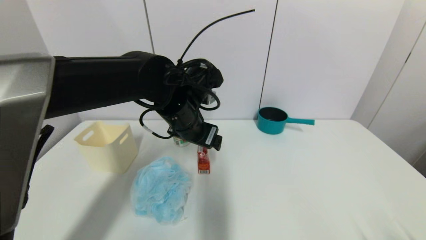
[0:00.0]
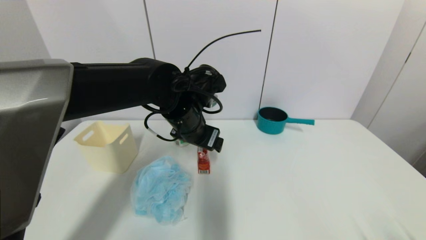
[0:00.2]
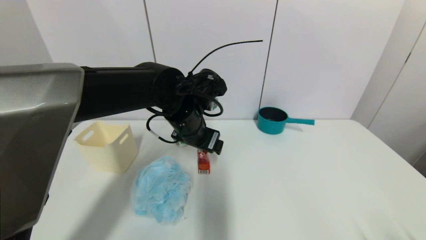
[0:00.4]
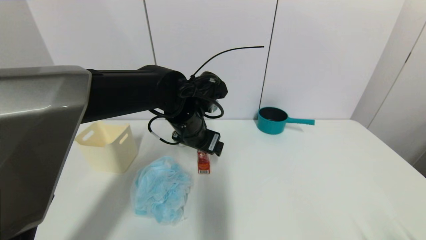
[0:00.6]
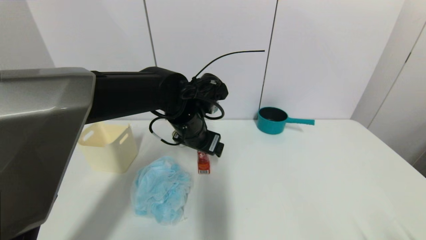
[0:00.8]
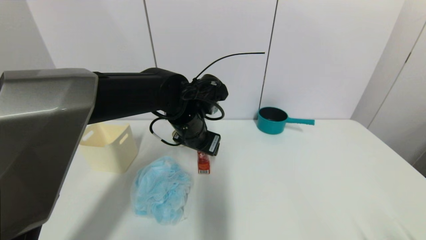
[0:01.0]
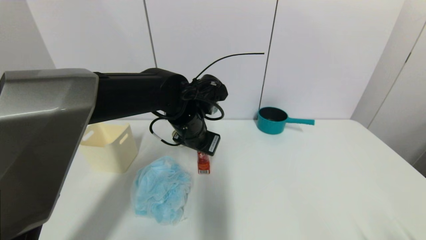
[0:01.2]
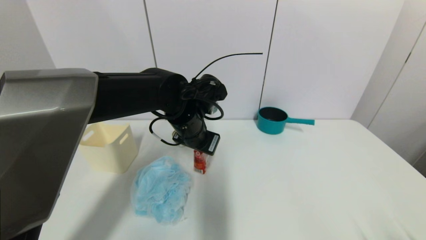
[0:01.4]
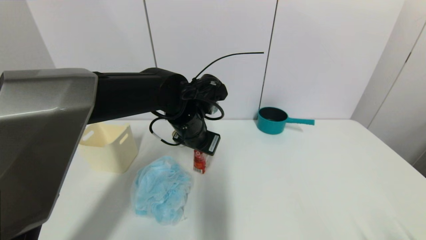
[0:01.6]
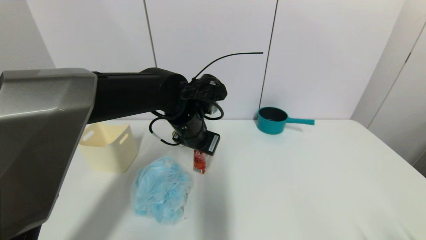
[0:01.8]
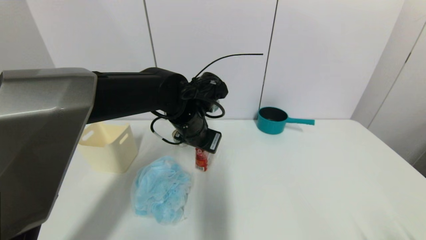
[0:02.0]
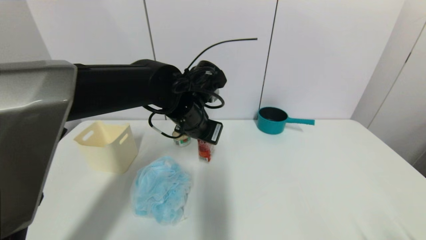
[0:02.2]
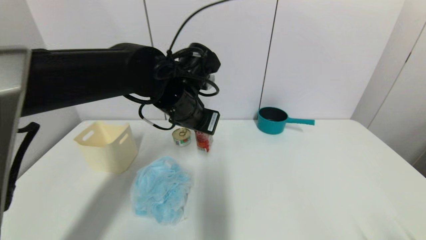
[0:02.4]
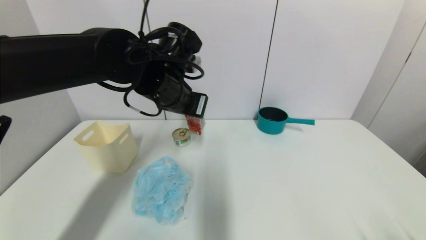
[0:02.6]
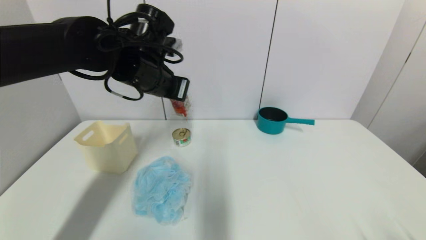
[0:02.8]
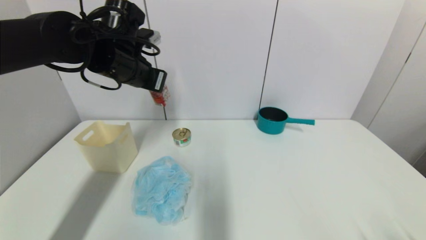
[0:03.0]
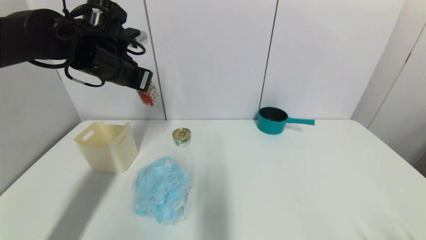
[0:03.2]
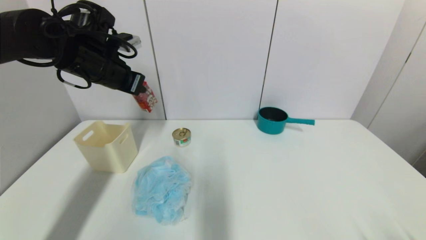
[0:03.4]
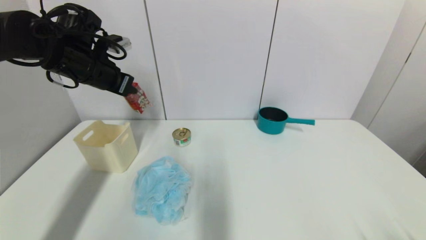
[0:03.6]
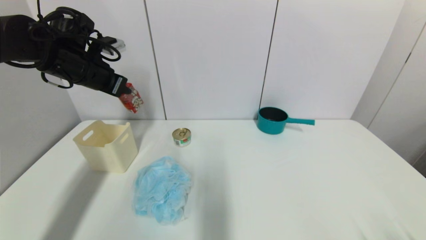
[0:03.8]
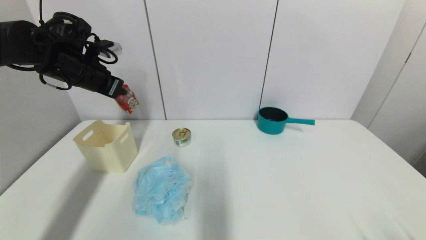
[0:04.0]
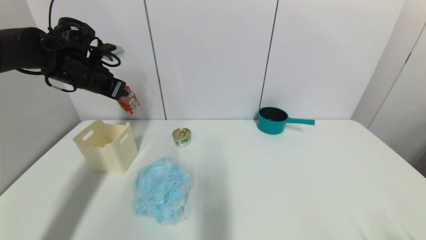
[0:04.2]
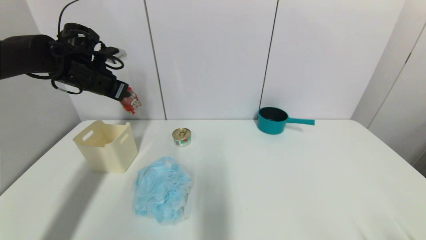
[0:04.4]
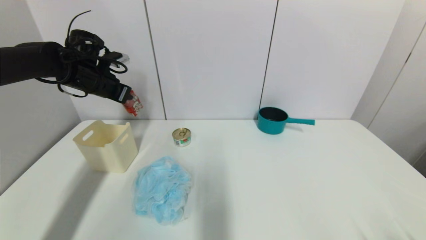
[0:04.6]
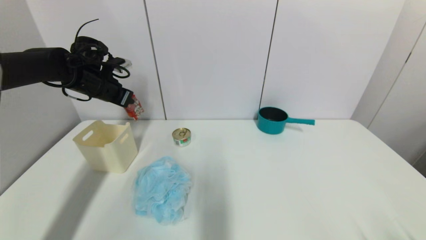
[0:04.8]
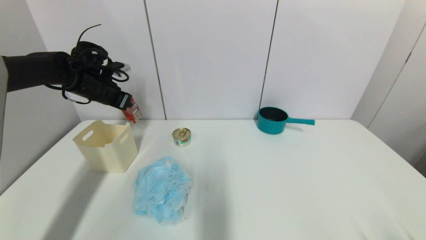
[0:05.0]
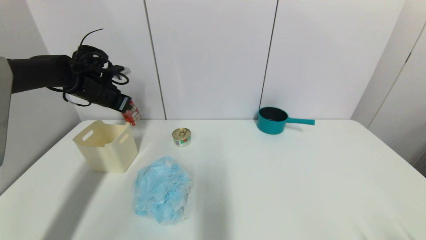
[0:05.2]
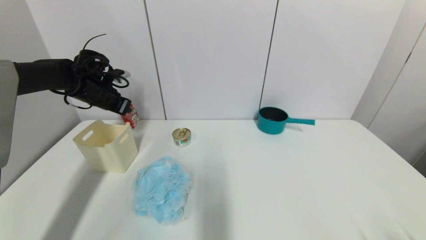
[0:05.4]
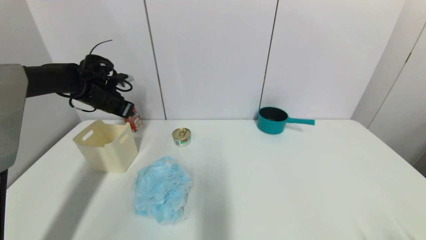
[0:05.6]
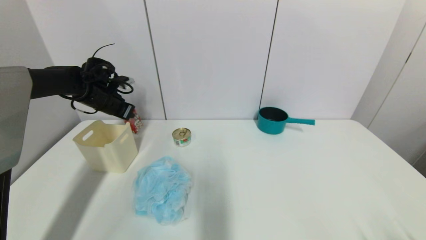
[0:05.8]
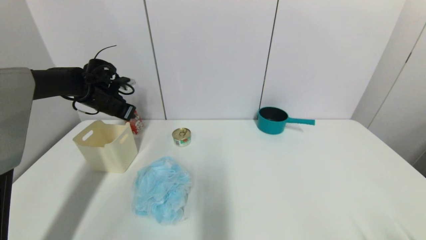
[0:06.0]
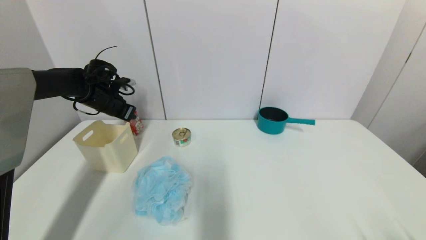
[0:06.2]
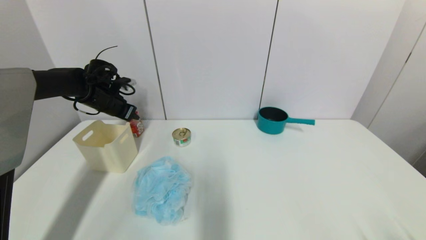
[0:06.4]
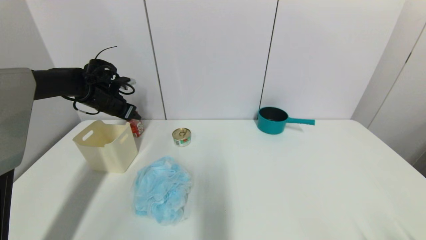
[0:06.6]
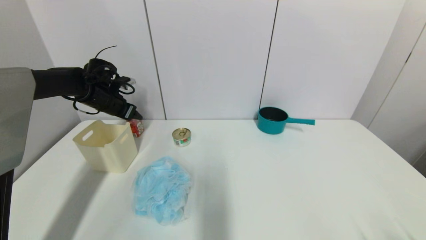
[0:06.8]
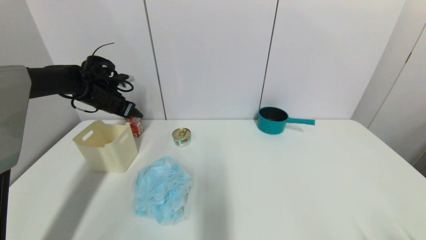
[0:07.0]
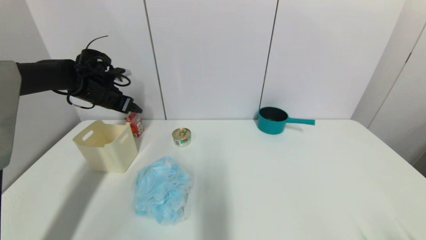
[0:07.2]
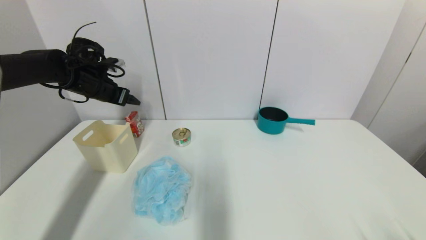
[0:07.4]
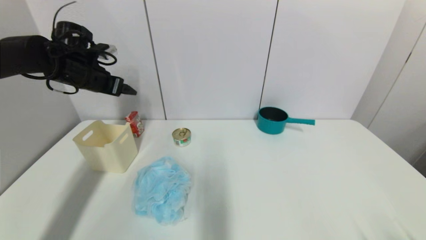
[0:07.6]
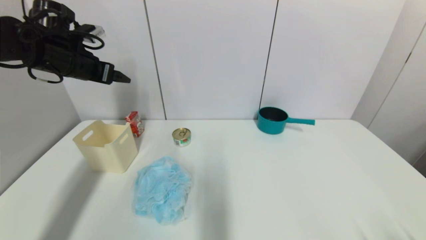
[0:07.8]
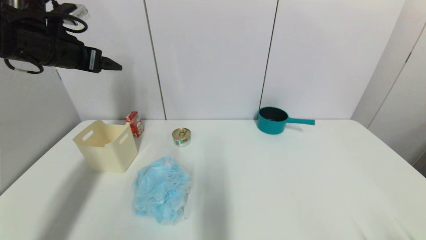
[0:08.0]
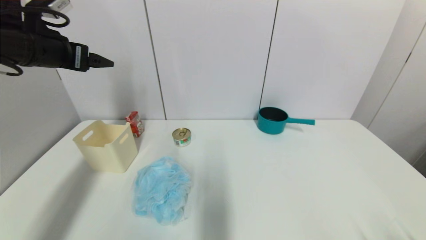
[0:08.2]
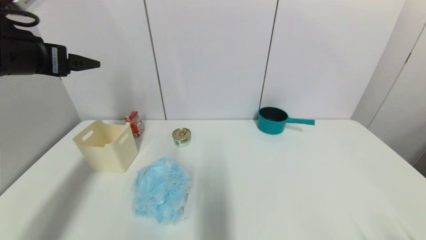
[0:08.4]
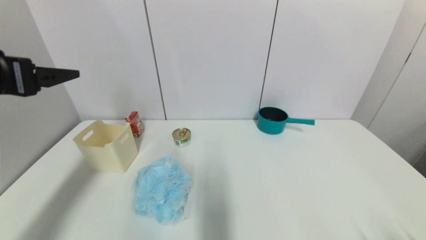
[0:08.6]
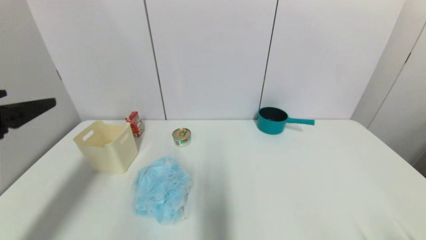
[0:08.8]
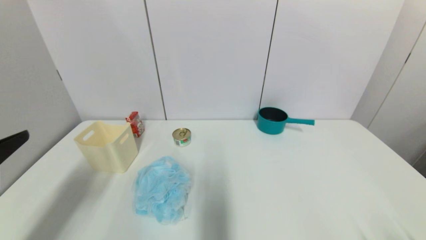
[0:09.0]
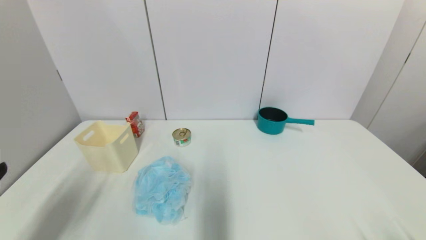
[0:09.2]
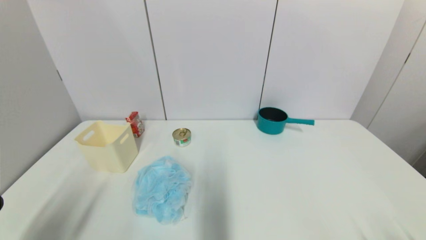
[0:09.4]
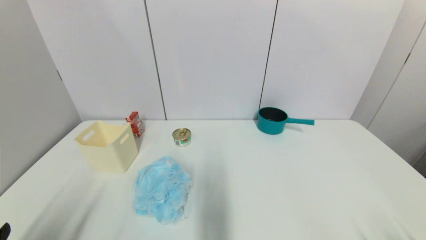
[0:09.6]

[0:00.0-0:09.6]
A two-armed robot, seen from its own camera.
Step, 0:02.0 to 0:06.4: Place the wangzai milk on the table with left gripper.
0:00.0 to 0:01.6: The left gripper closes.
0:01.6 to 0:03.2: The left gripper is displaced to the left and upward by approximately 20 cm.
0:03.2 to 0:04.8: The left gripper shifts about 15 cm to the left, forward and downward.
0:04.8 to 0:06.4: The left gripper is displaced downward by roughly 5 cm, and opens.
0:06.4 to 0:08.0: The left gripper moves upward and backward, approximately 20 cm, and opens.
0:08.0 to 0:09.6: The left gripper shifts some 40 cm backward and downward.

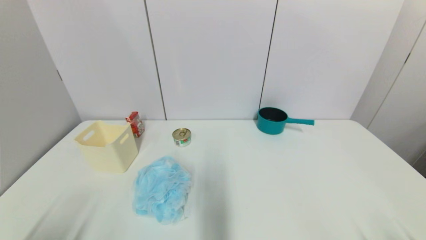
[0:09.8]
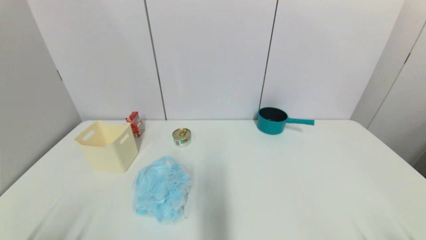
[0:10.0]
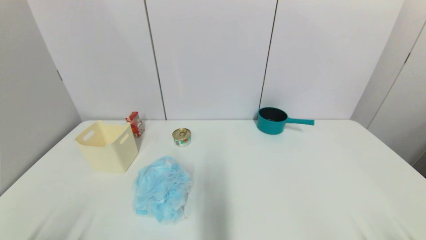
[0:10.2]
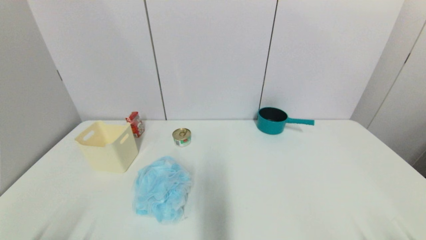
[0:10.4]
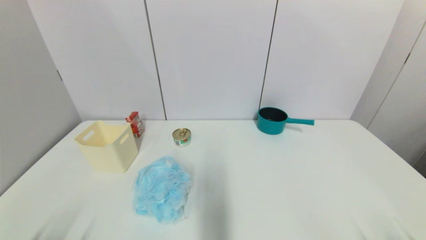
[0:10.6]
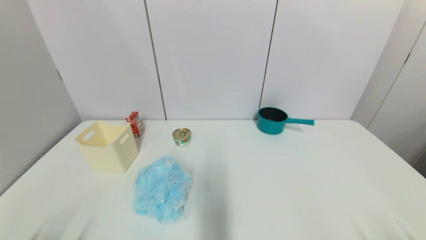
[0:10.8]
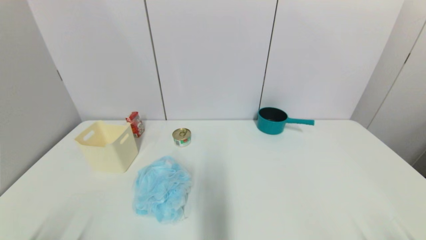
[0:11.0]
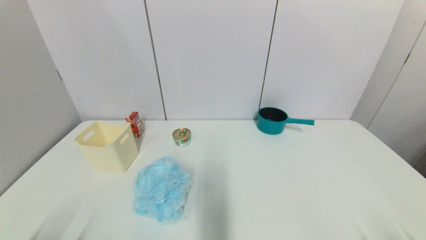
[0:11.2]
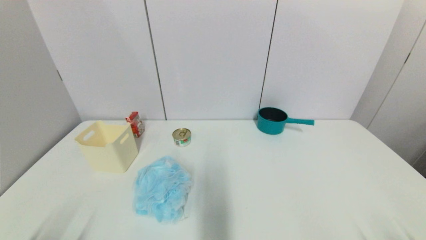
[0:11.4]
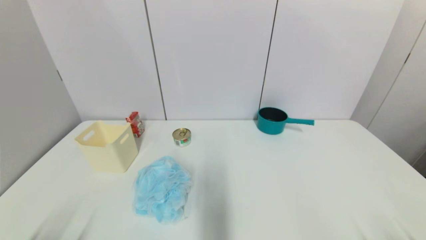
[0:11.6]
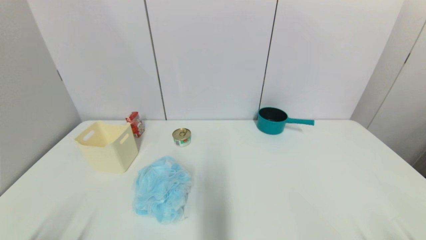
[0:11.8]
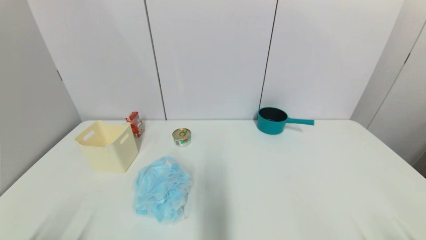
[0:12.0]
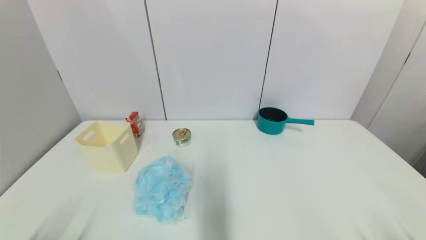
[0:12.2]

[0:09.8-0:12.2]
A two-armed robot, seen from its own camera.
0:11.0 to 0:12.2: Both grippers stay put.

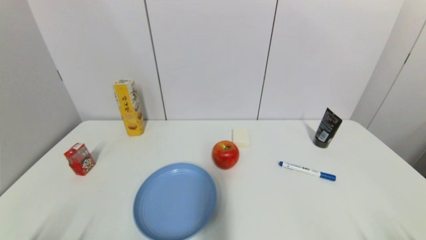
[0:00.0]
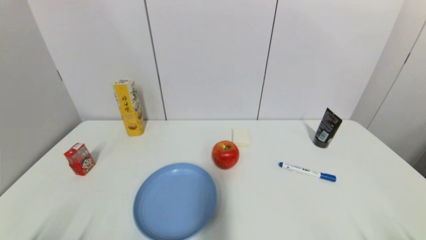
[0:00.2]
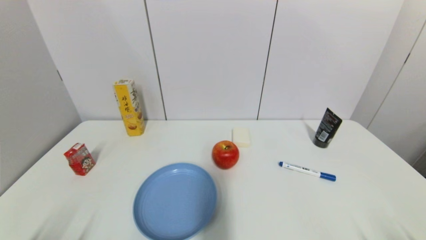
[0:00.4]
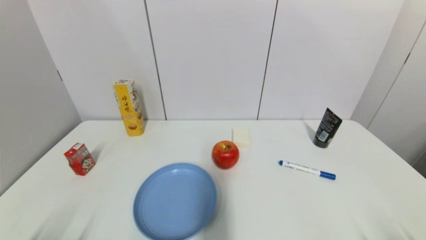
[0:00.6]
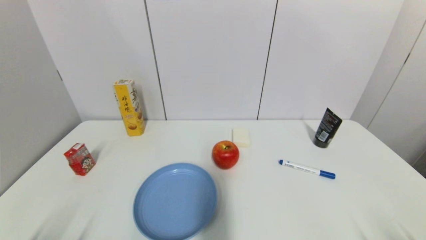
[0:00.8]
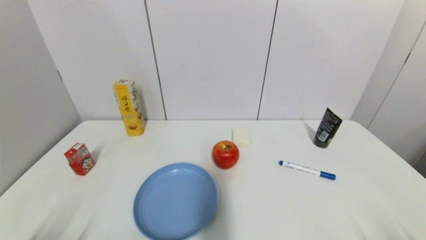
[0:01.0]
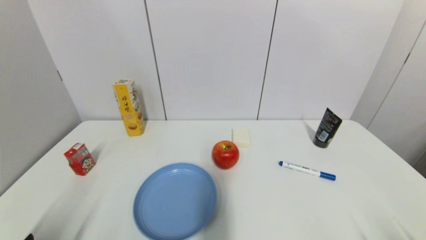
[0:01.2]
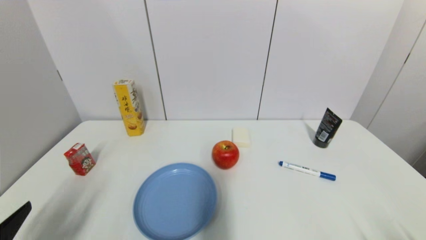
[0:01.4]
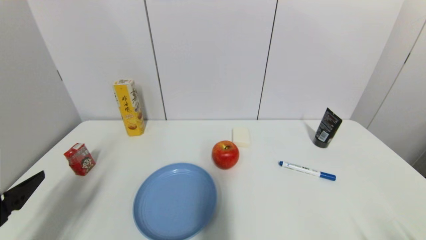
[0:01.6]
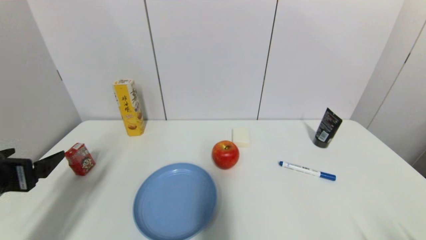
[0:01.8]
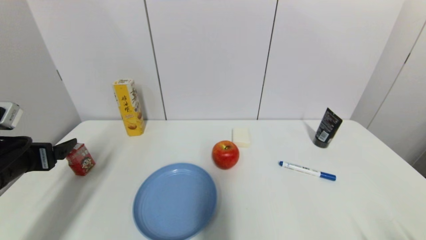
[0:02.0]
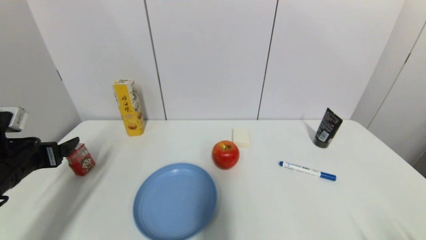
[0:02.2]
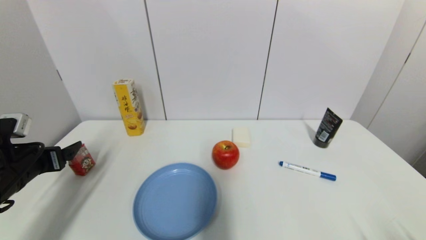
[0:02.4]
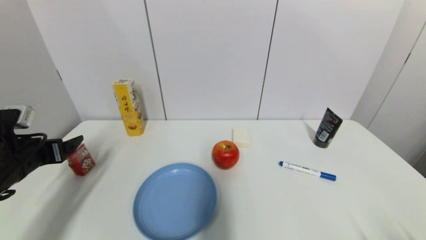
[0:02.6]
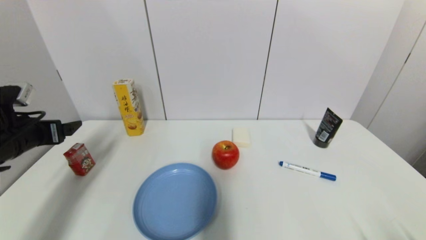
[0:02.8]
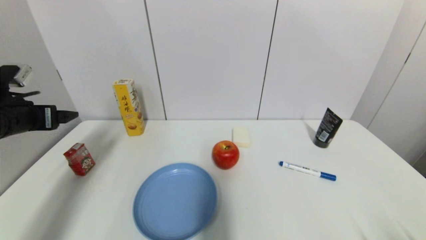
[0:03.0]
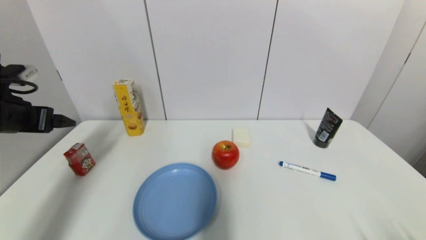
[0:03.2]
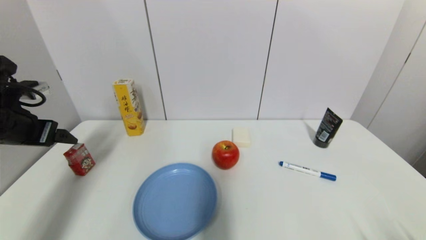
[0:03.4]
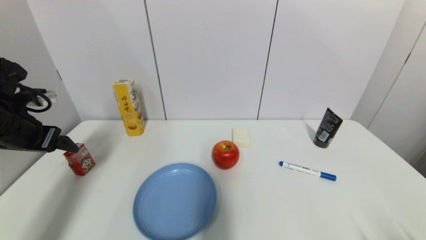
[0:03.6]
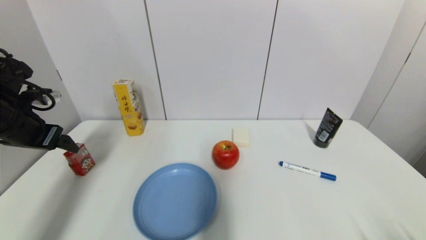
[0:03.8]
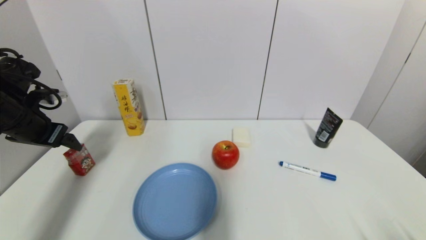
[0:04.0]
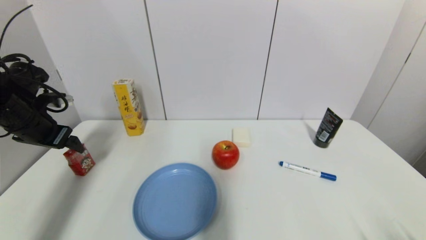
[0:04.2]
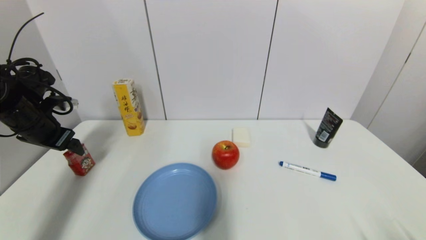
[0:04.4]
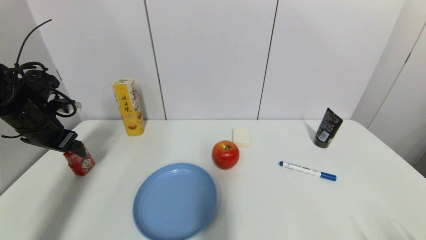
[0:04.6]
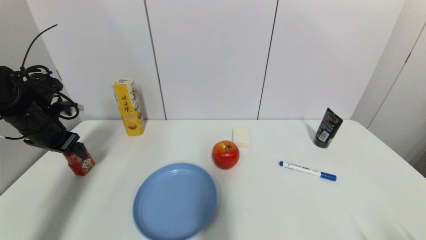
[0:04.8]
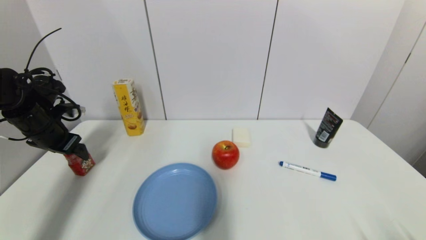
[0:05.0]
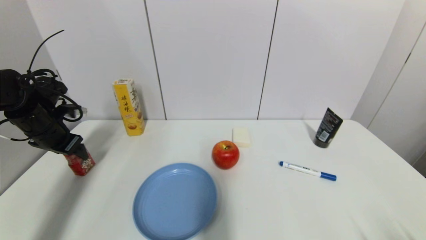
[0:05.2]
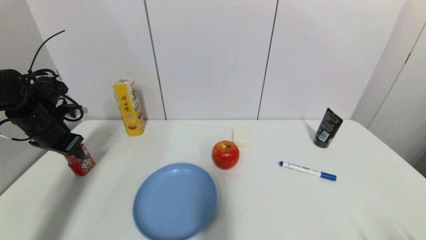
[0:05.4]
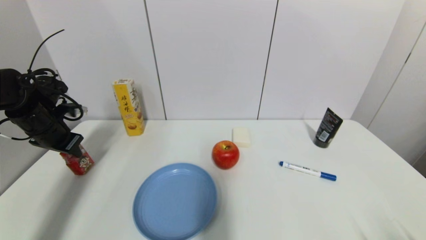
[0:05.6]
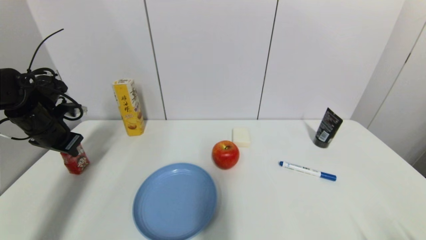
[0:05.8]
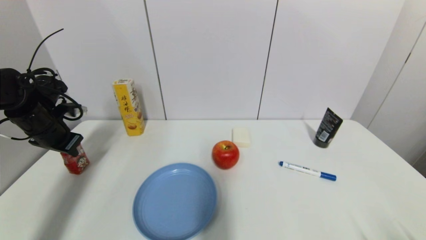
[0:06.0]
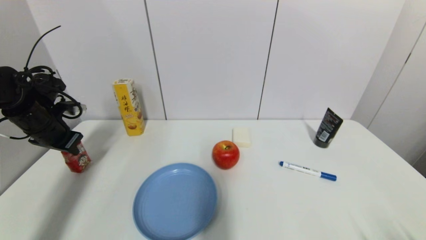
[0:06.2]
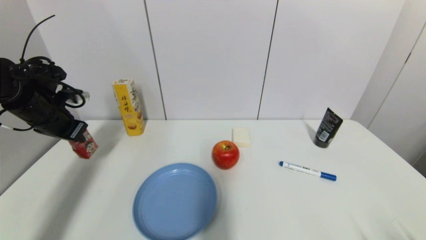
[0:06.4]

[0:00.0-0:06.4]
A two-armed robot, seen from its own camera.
Step, 0:01.4 to 0:05.8: Grasp the wangzai milk with left gripper.
0:00.0 to 0:01.6: The left gripper travels upward and forward by approximately 15 cm.
0:01.6 to 0:03.2: The left gripper is displaced forward by about 15 cm.
0:03.2 to 0:04.8: The left gripper goes about 10 cm forward and downward.
0:04.8 to 0:06.4: The left gripper closes up.
